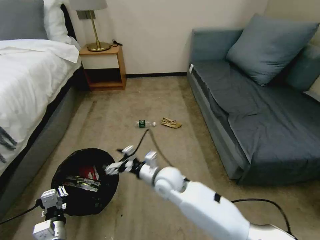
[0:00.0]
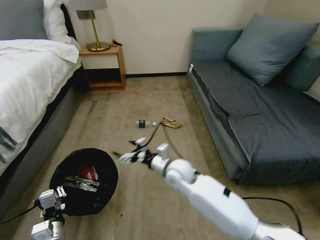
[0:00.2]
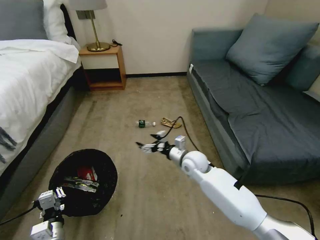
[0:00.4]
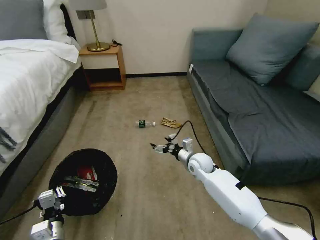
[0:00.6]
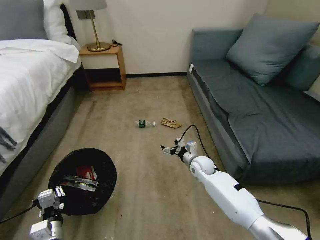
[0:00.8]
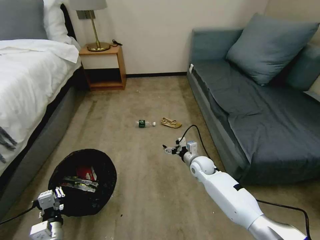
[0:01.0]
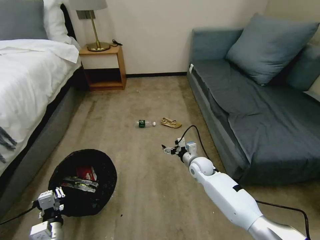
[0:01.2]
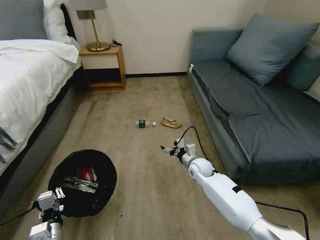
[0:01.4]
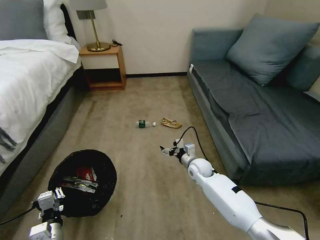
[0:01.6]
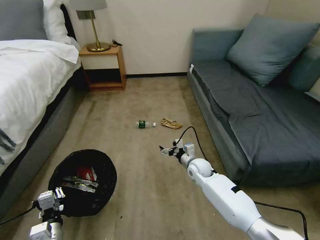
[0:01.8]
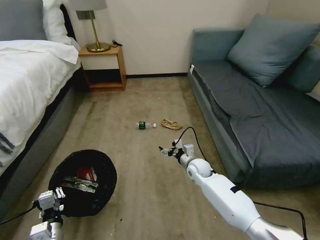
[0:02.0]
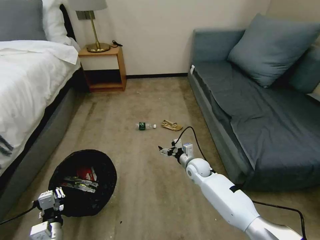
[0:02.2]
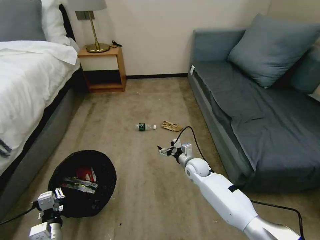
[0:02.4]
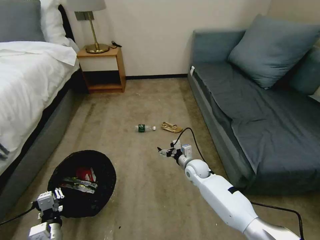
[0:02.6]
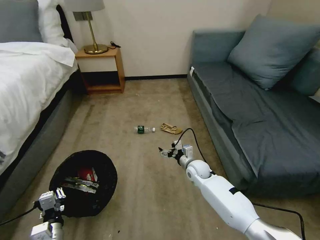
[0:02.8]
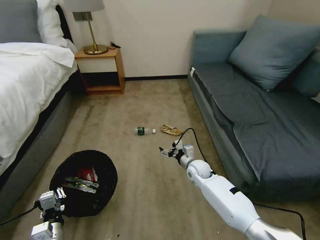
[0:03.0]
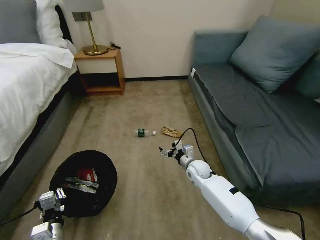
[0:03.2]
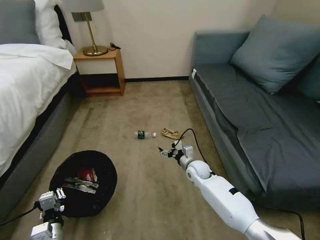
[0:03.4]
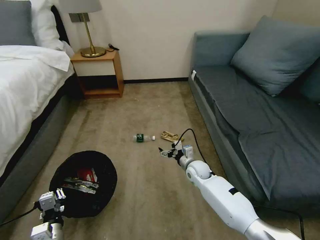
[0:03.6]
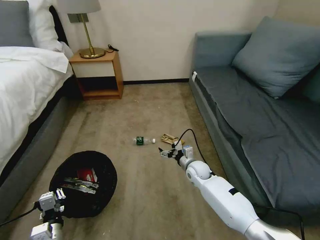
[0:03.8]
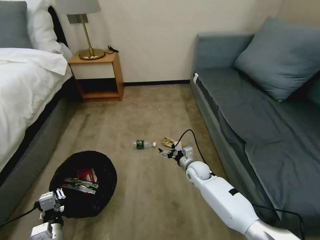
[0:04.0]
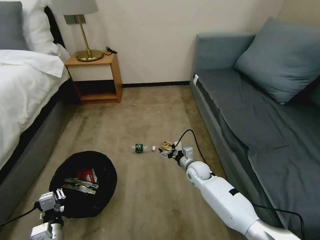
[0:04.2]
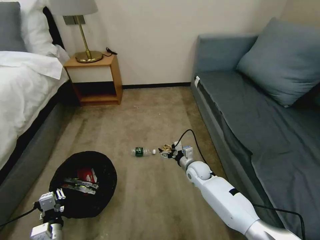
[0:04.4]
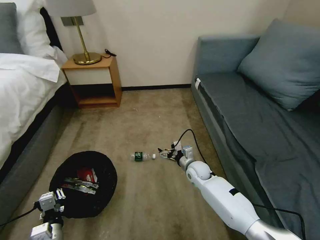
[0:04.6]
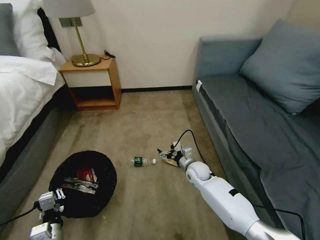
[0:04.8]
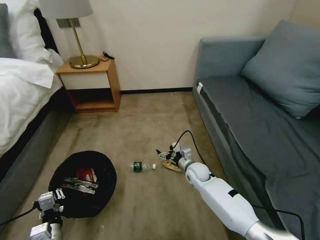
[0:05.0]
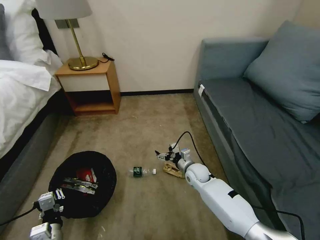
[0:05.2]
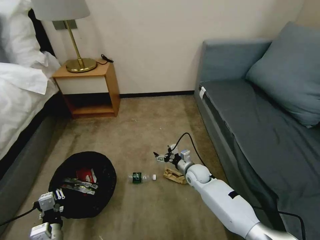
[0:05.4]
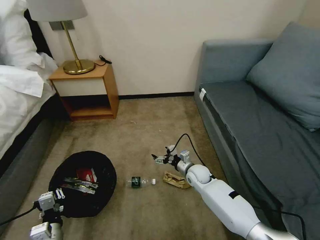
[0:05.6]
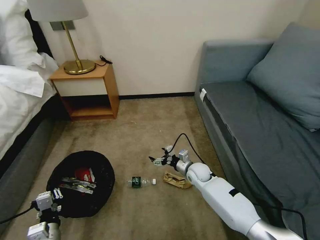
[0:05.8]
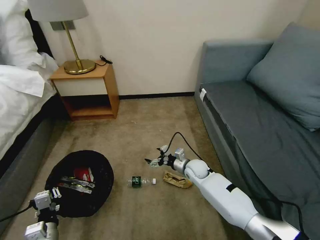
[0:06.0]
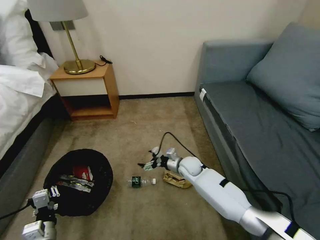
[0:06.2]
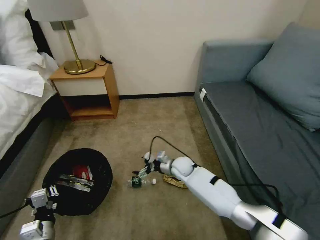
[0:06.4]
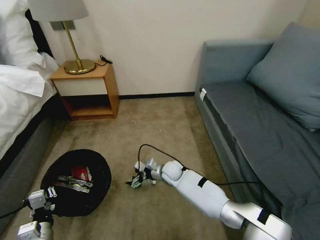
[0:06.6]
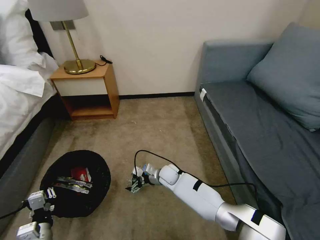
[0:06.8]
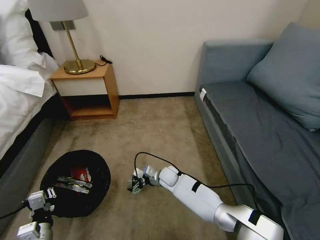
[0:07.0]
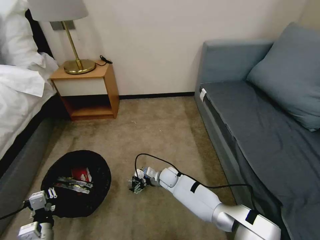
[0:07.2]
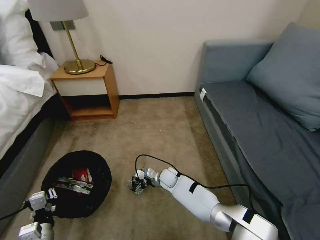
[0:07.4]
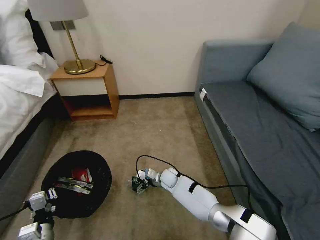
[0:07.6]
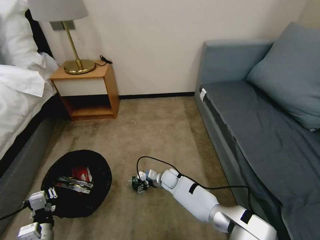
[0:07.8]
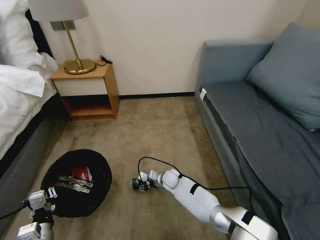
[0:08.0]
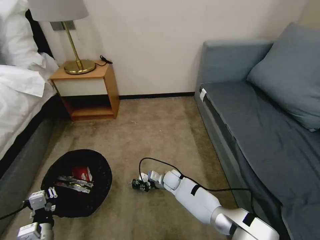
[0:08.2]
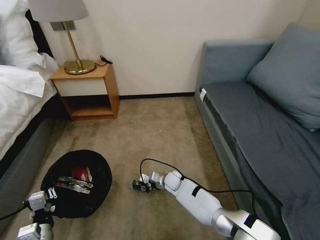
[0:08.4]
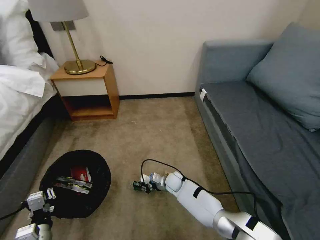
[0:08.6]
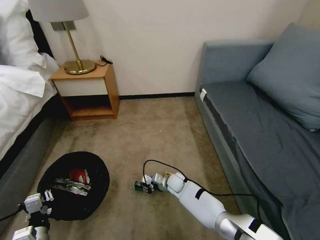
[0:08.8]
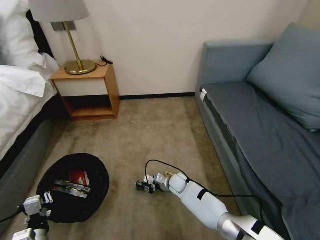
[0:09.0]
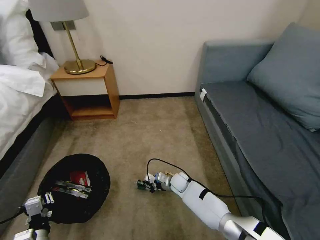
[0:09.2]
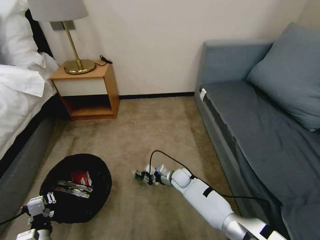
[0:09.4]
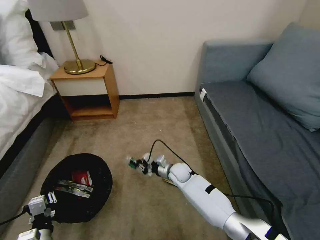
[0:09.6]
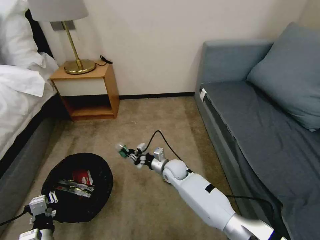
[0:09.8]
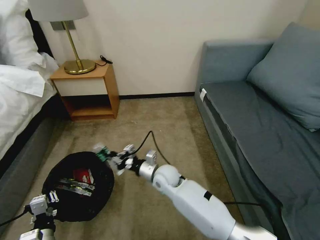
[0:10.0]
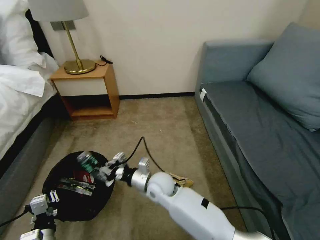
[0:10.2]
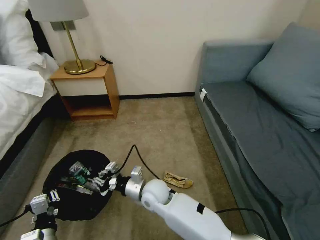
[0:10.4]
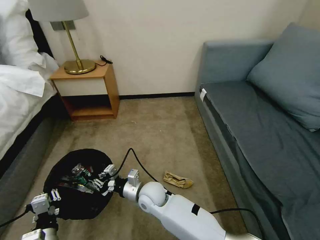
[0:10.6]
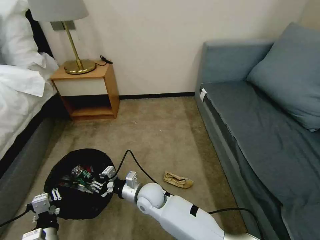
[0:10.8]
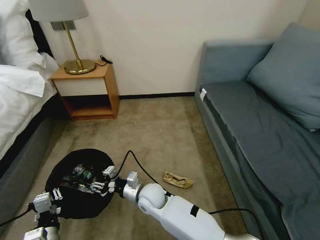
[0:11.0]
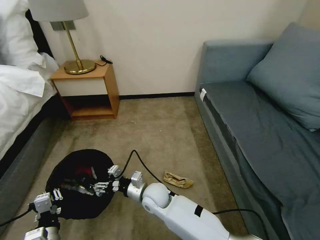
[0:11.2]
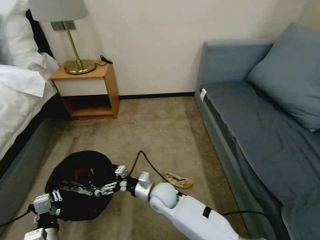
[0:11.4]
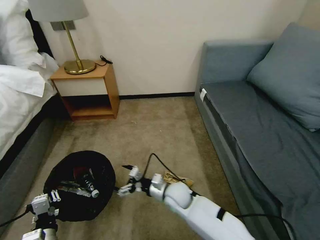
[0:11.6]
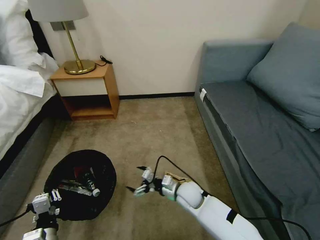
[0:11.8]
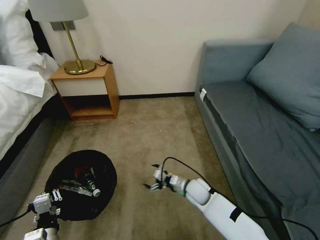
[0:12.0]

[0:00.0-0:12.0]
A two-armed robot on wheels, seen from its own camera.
Task of the whole recording: Pick up the trash bin, then pick up the garbage on the floor and place it into the trash bin.
0:00.0 to 0:01.6: The right gripper moves to the right, forward and downward, approximately 20 cm.
0:01.6 to 0:03.0: Both grippers stay about where they are.
0:06.0 to 0:07.6: The right gripper shifts roughly 15 cm to the left and downward.
0:07.6 to 0:09.0: The right gripper closes up.
0:09.0 to 0:10.4: The right gripper travels upward, to the left and backward by roughly 20 cm.
0:10.4 to 0:12.0: The right gripper heads to the right and downward, covering some 20 cm, and opens.

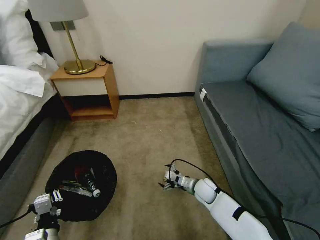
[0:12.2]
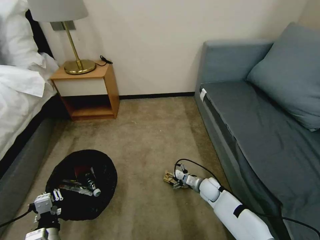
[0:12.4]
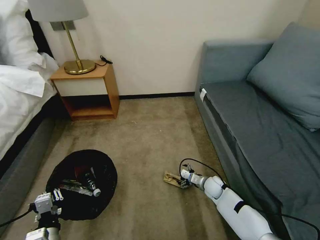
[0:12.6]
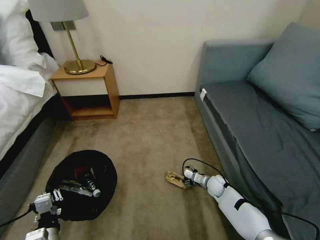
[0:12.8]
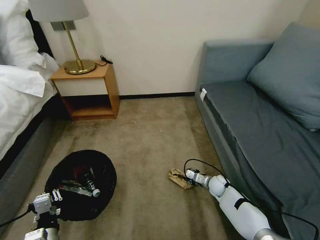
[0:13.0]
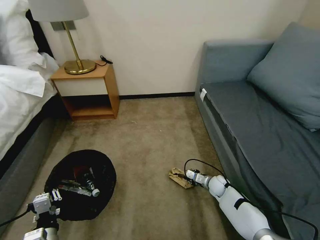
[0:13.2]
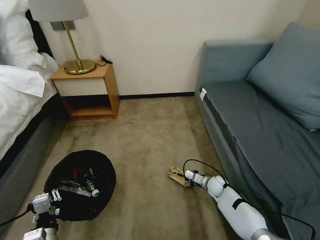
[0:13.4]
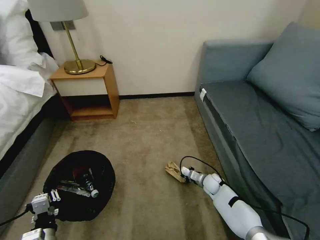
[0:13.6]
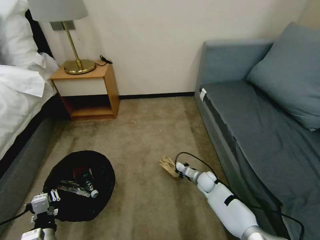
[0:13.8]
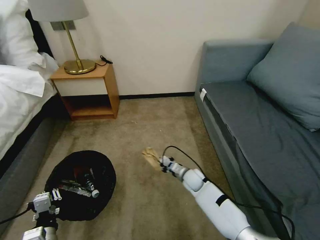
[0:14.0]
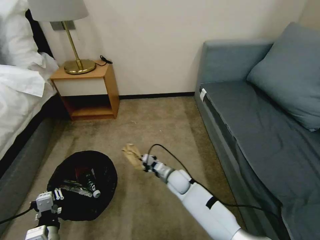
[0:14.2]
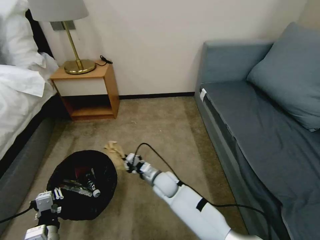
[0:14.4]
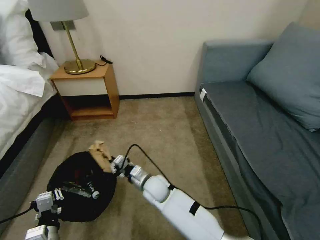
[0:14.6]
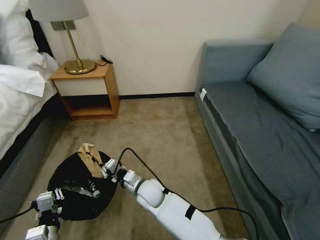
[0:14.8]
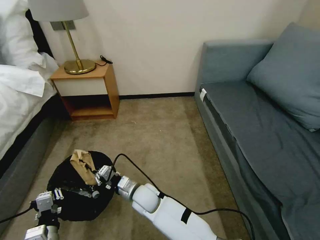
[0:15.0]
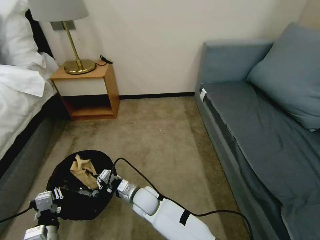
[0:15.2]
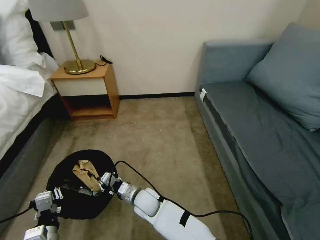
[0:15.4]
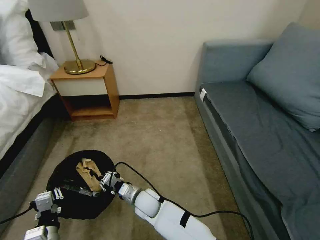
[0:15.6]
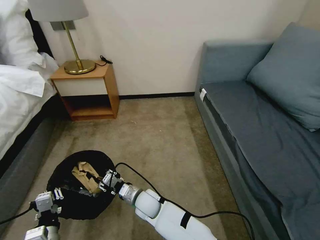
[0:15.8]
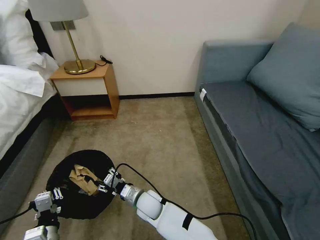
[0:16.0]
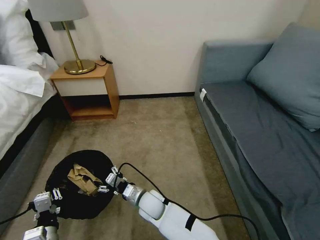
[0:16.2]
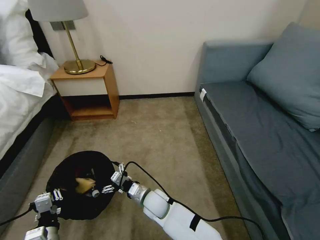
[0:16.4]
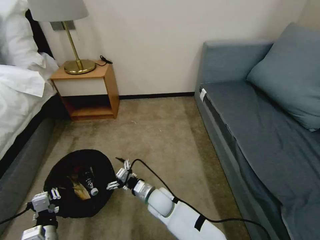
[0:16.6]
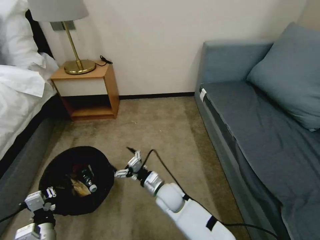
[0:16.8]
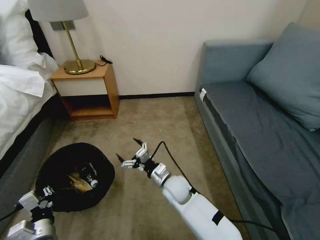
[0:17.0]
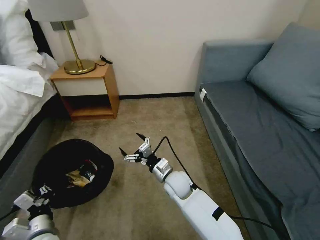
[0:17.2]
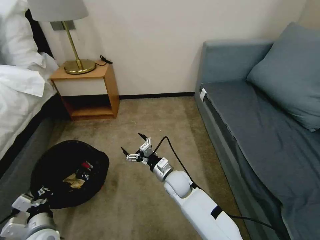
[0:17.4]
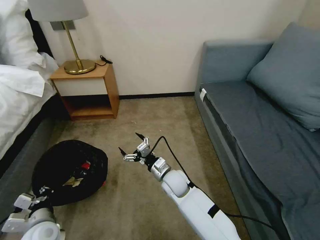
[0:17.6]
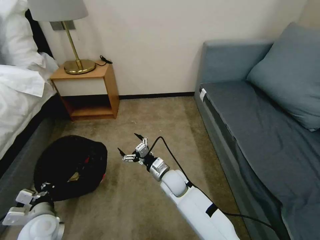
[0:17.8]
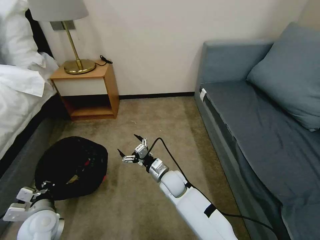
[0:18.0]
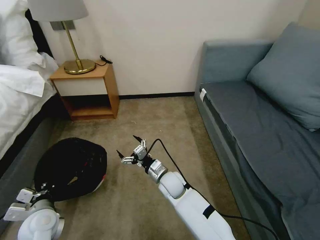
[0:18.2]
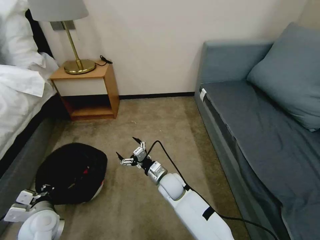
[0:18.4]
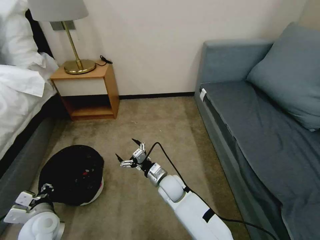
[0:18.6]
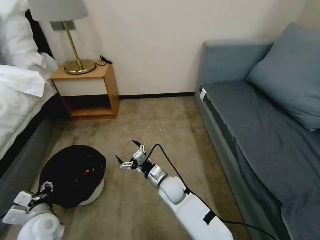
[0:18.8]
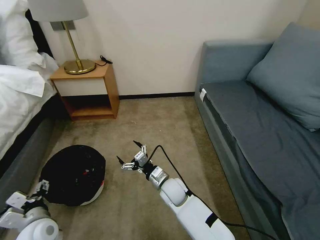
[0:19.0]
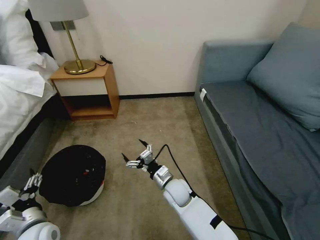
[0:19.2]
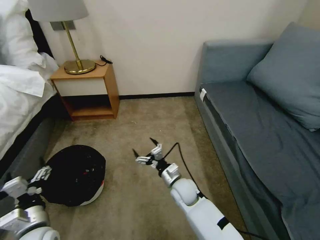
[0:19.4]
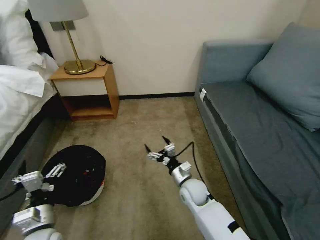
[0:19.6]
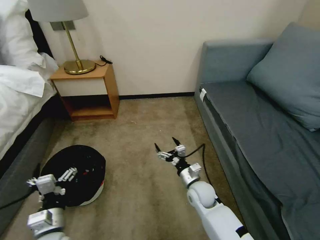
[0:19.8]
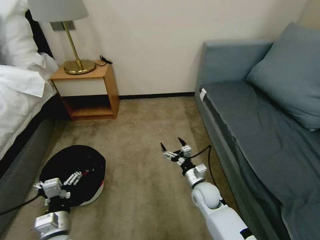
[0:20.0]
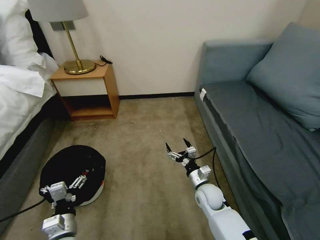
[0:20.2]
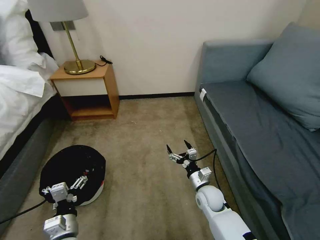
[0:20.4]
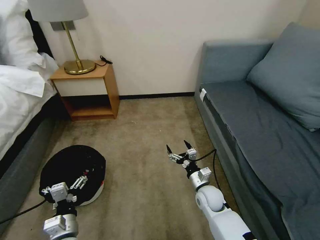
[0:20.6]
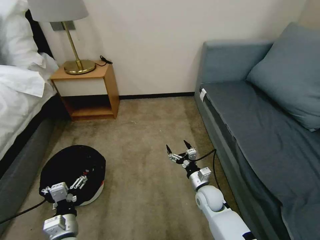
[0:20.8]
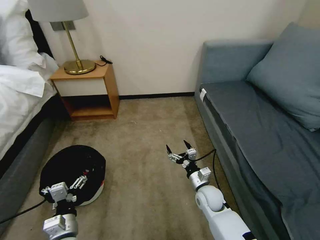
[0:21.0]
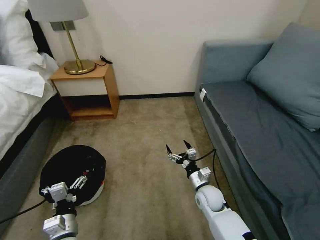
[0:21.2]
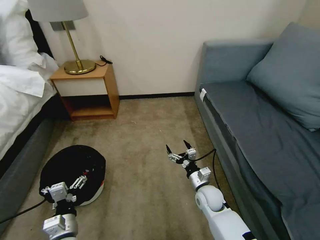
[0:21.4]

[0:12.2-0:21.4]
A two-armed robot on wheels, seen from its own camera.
Task of the whole recording: Pick up the trash bin, then pick up the garbage on the floor and place it into the trash bin.
0:12.2 to 0:13.8: The right gripper closes up.
0:13.8 to 0:15.2: The right gripper shifts about 30 cm to the left and backward.
0:15.2 to 0:16.8: The right gripper is displaced to the right by roughly 10 cm, and opens its fingers.
0:16.8 to 0:18.4: The left gripper moves forward, roughly 10 cm.
0:18.4 to 0:19.8: The right gripper goes some 10 cm to the right, while the left gripper heads to the right and backward, covering about 10 cm, and opens.
0:19.8 to 0:21.4: The grippers stay close to where they were, moving slightly.

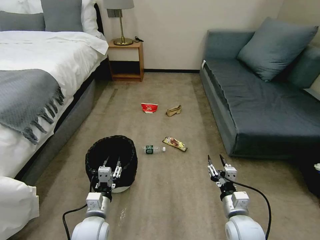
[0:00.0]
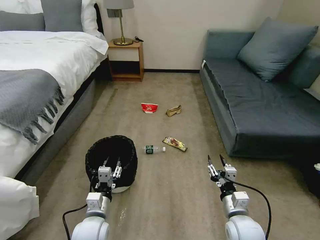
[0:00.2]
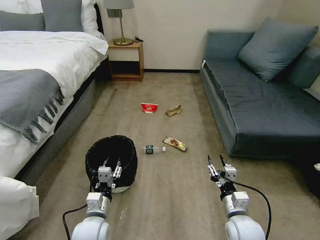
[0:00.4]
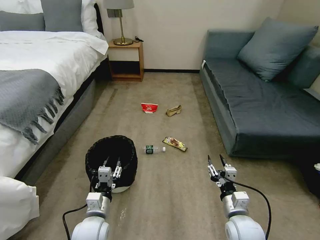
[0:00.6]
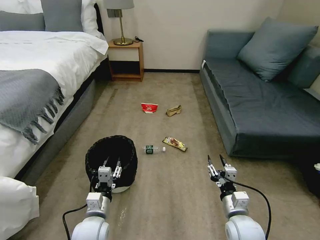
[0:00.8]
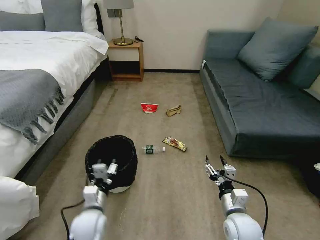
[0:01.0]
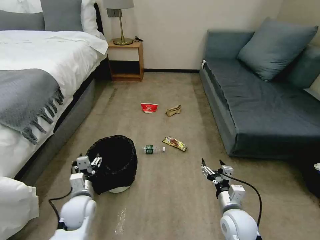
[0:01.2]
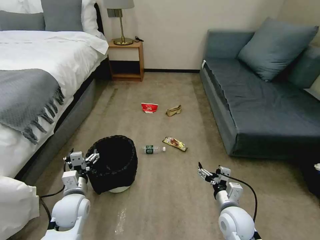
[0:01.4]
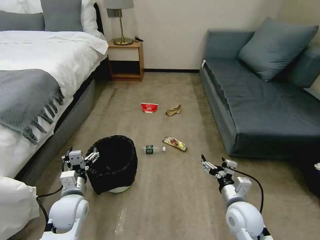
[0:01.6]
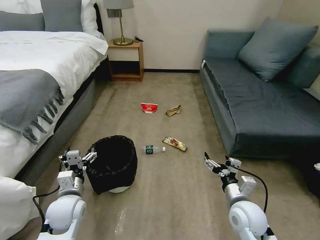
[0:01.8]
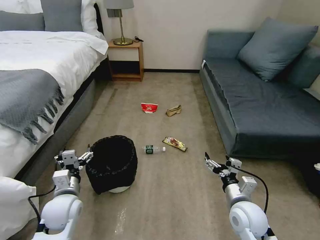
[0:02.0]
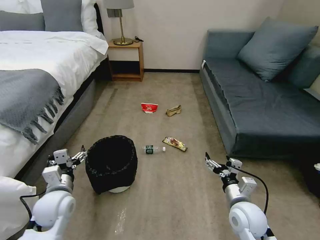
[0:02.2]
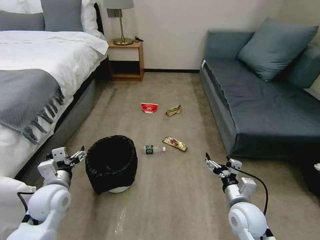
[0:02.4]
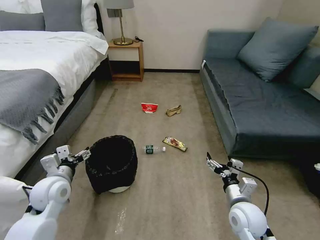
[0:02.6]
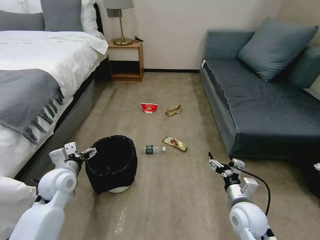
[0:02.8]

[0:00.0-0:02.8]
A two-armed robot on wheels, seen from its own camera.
Task of the whole recording: Pick up the trash bin, then pick up the garbage on the floor and place it into the trash bin.
0:01.4 to 0:02.8: The left gripper shifts approximately 10 cm upward and forward.
